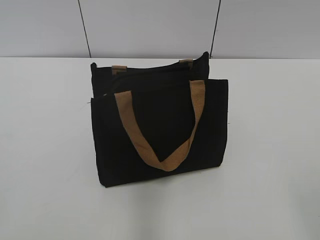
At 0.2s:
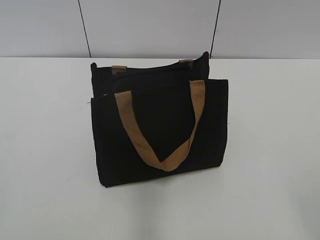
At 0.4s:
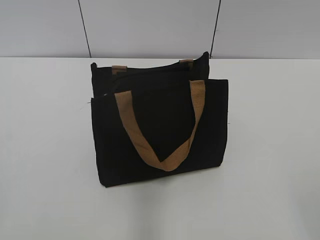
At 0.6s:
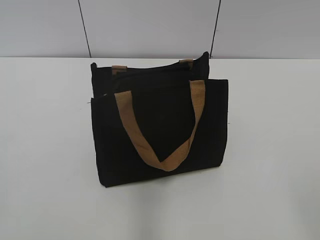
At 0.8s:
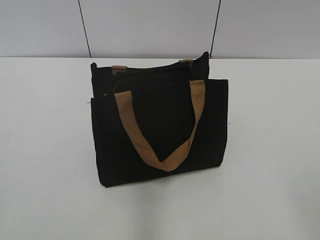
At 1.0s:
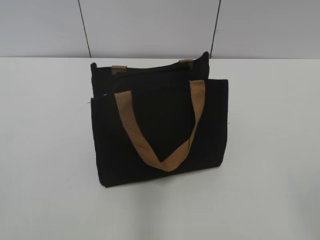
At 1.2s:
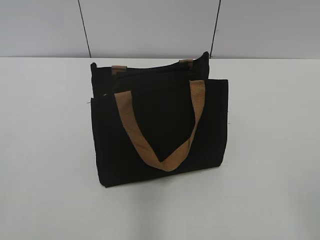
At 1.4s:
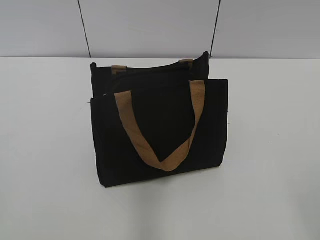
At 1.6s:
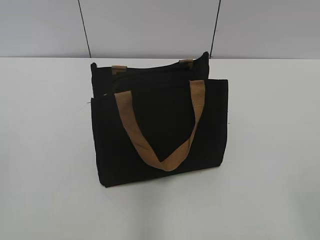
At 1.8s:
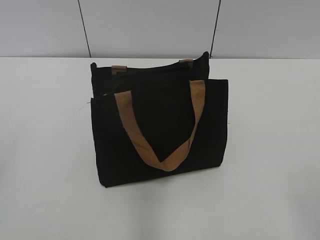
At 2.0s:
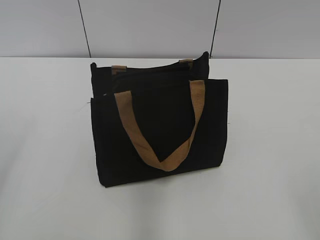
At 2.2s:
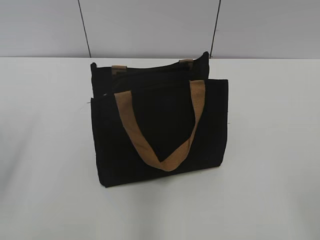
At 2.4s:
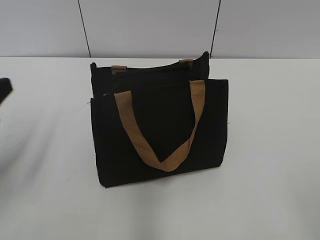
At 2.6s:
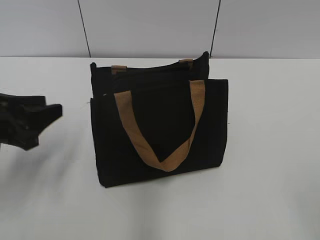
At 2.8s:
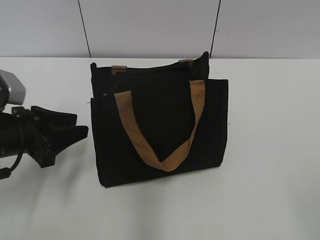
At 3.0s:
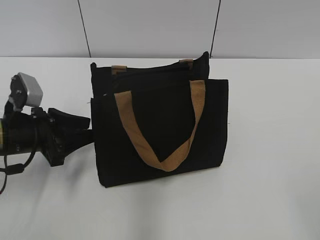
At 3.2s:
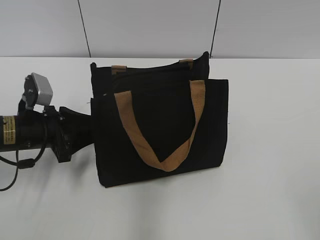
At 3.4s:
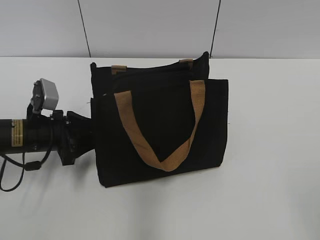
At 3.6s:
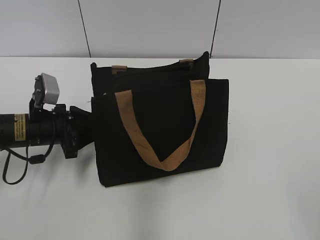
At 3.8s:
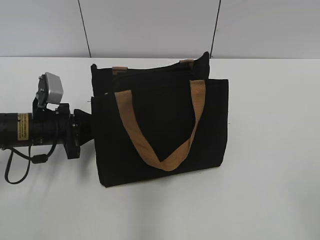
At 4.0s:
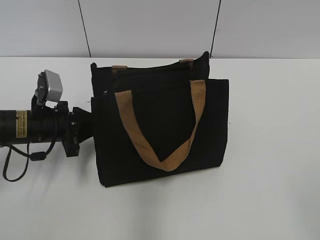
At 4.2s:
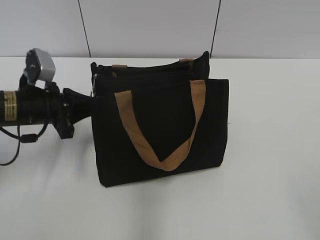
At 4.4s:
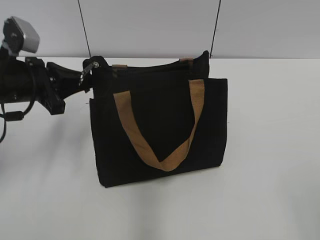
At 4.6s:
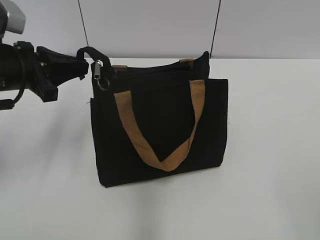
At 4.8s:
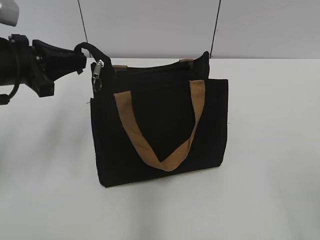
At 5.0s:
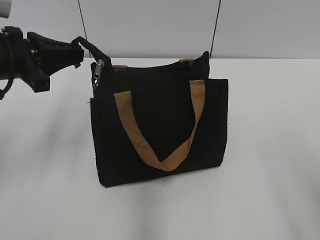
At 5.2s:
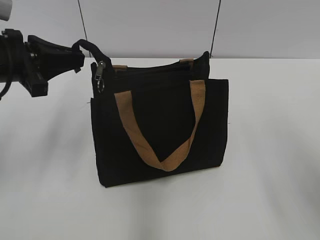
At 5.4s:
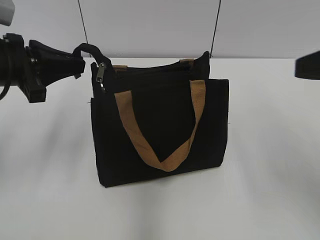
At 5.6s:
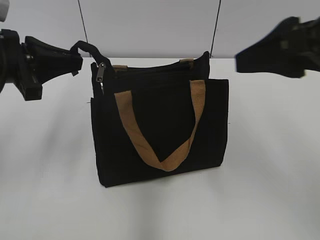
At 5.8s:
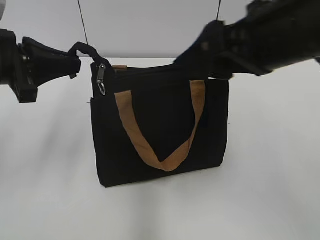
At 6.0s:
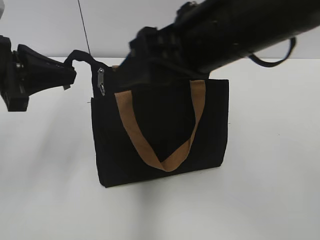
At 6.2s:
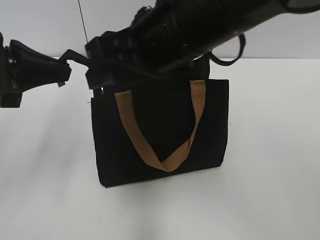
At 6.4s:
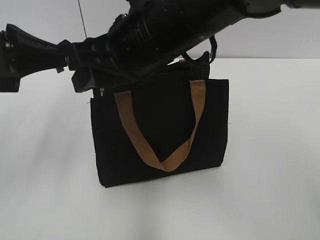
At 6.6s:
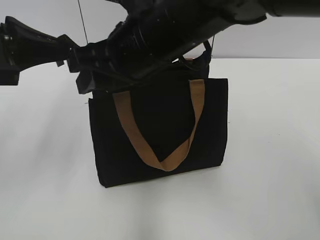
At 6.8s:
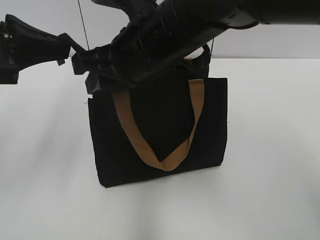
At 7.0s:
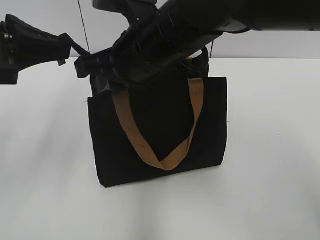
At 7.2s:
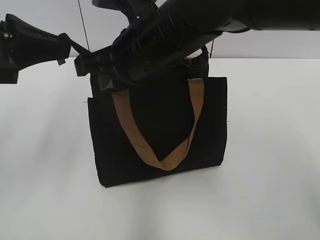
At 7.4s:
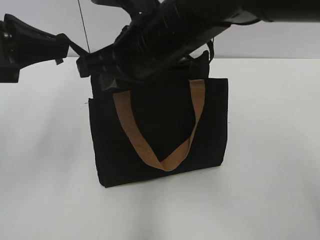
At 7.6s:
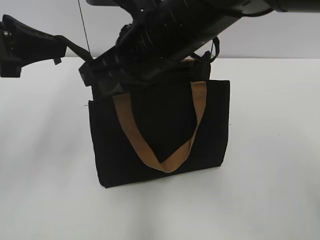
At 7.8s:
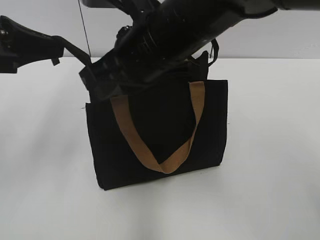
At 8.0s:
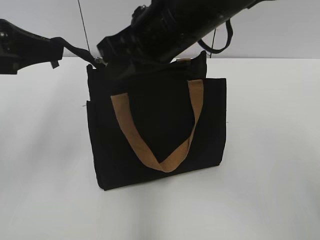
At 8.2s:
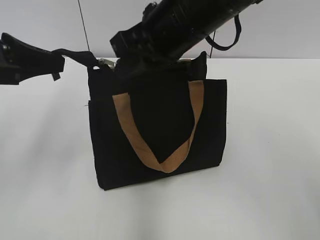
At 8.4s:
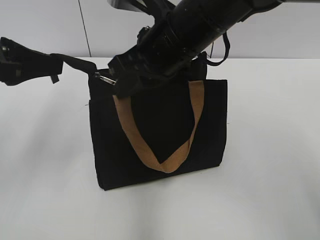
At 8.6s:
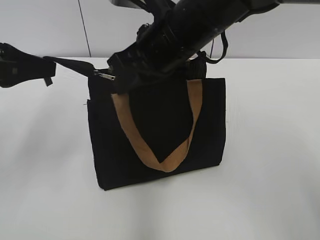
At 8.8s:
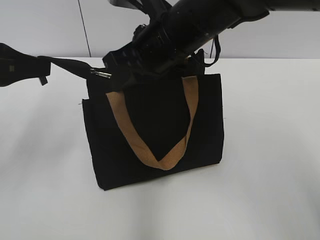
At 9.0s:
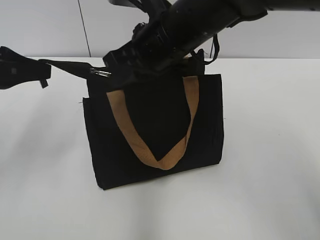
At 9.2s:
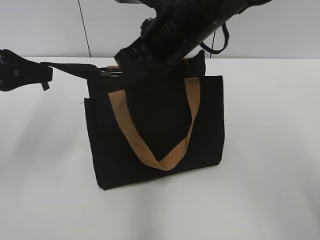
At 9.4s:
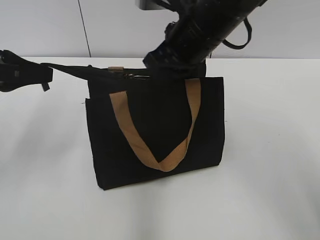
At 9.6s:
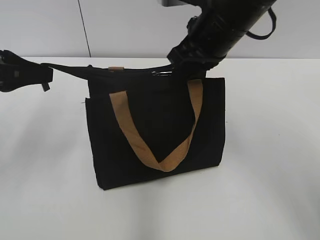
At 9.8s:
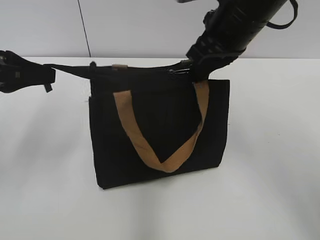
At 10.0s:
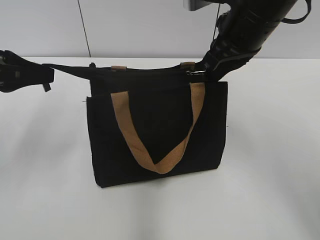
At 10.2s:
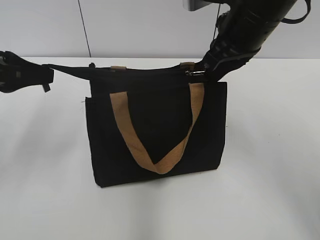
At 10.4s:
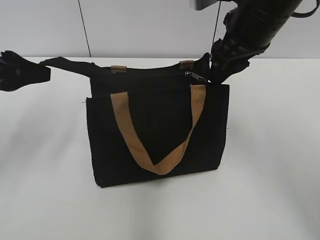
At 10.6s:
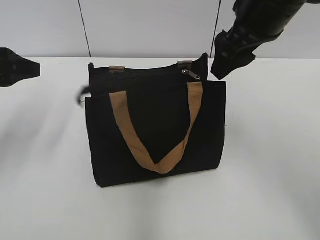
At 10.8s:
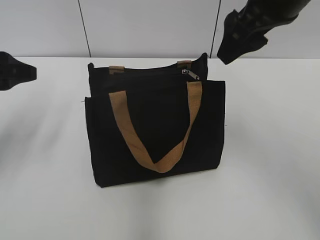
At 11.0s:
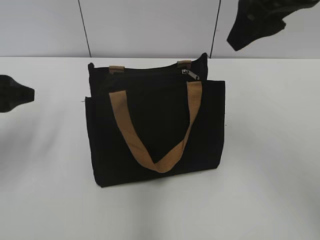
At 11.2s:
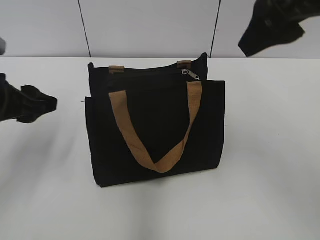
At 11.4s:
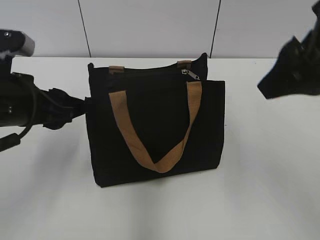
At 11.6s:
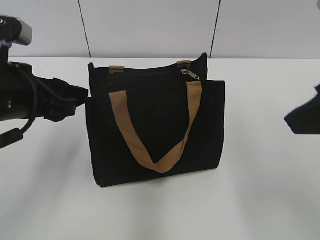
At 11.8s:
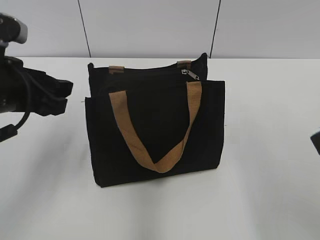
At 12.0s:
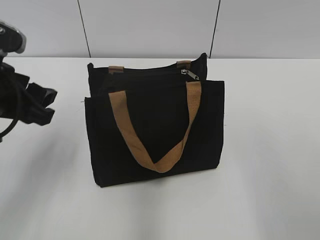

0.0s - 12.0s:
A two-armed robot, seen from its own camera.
Step, 0.0s - 10.2s: Zip up the bag with your right hand.
1.6s - 3.0s: The left gripper shifts roughly 30 cm forward and downward.
3.0s - 4.4s: The left gripper moves upward, some 5 cm, and closes its fingers.
4.4s - 6.0s: The left gripper shifts approximately 10 cm upward and backward. Meanwhile the right gripper is displaced forward and to the left by some 30 cm.
6.0s - 7.6s: The right gripper moves to the left, roughly 5 cm, and closes up.
7.6s - 9.0s: The right gripper shifts by approximately 5 cm.
9.0s - 10.4s: The left gripper opens its fingers, while the right gripper travels to the right by about 10 cm, and opens its fingers.
10.4s - 12.0s: The left gripper is displaced to the right by about 5 cm. The right gripper goes roughly 25 cm backward and to the right, and opens its fingers.

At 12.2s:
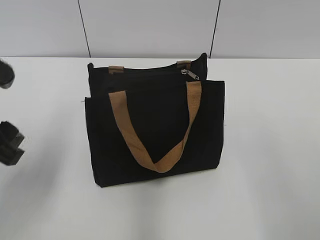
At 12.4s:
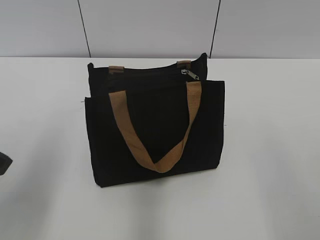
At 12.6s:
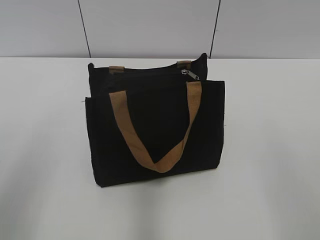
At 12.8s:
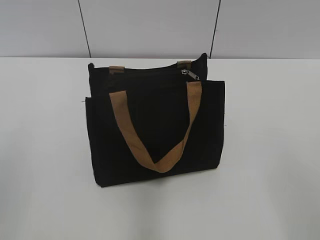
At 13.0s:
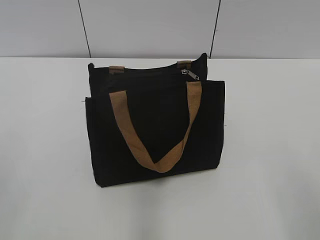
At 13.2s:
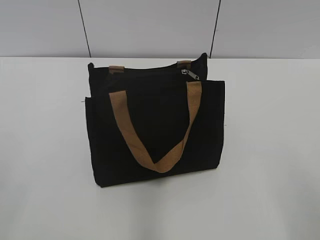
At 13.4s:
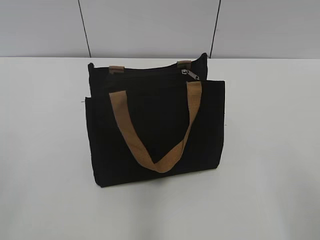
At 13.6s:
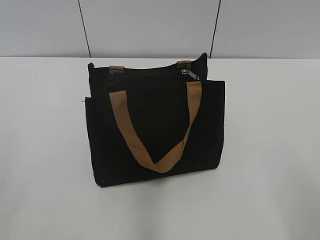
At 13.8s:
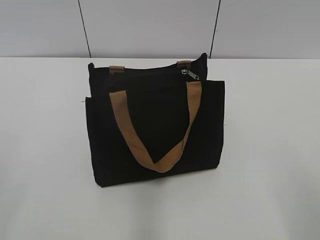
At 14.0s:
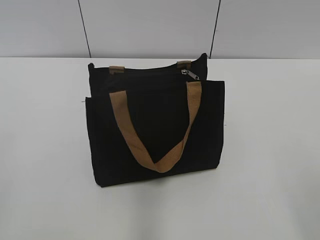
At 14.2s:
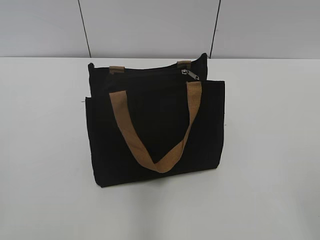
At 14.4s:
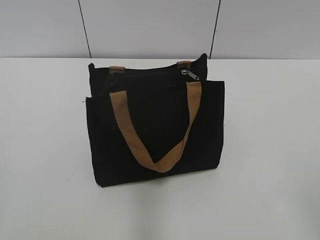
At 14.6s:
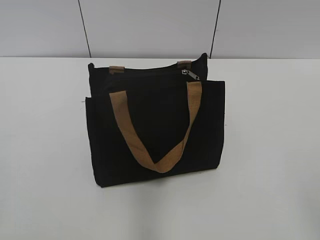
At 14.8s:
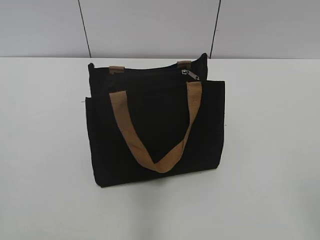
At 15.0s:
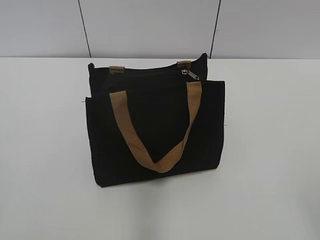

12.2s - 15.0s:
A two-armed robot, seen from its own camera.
12.2s - 13.6s: The left gripper heads backward and to the left, covering some 20 cm.

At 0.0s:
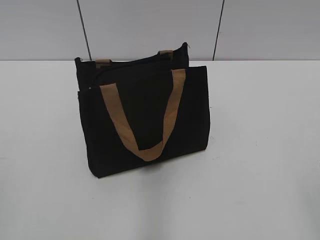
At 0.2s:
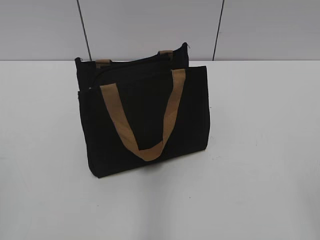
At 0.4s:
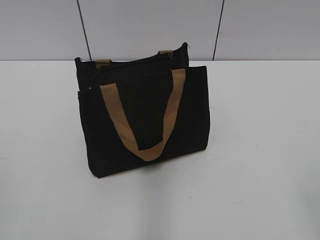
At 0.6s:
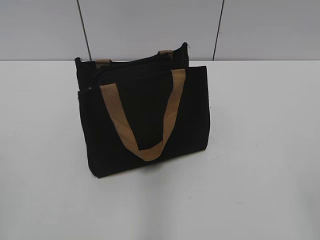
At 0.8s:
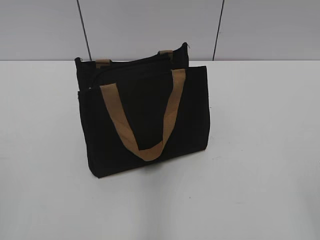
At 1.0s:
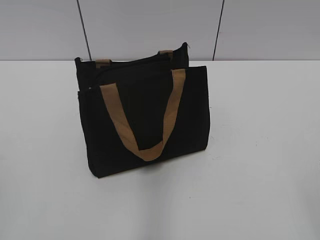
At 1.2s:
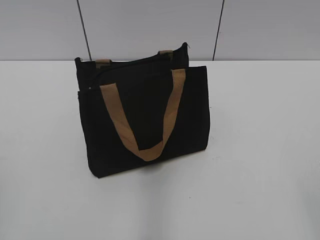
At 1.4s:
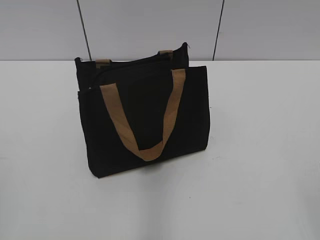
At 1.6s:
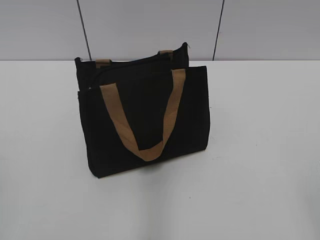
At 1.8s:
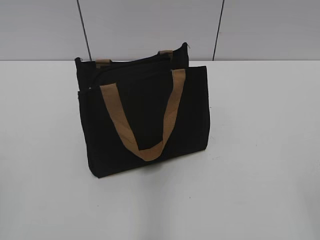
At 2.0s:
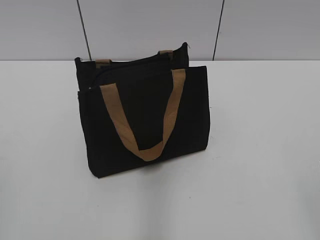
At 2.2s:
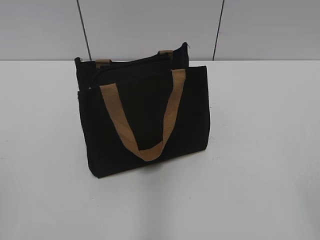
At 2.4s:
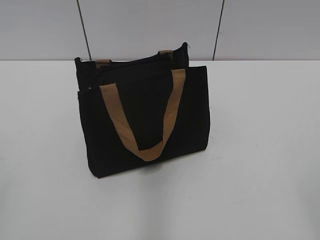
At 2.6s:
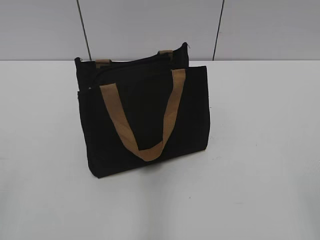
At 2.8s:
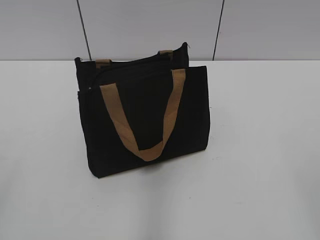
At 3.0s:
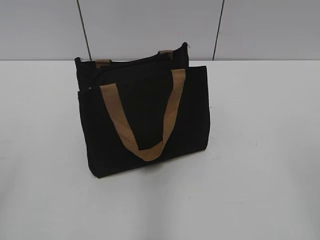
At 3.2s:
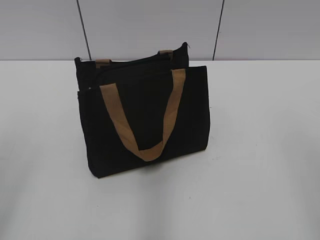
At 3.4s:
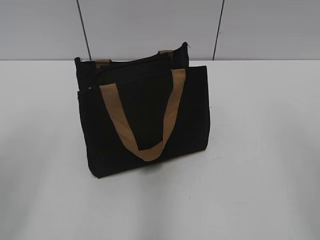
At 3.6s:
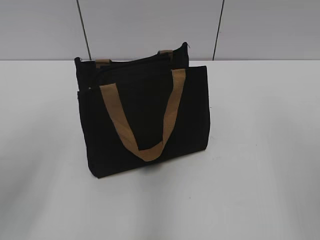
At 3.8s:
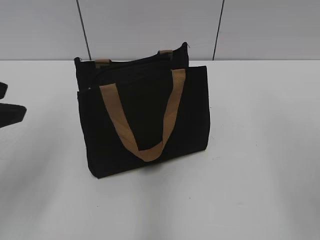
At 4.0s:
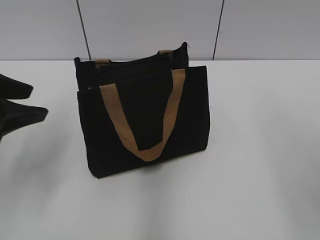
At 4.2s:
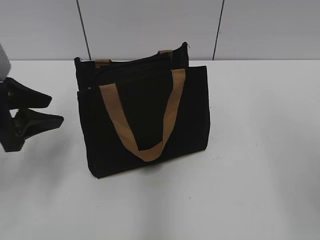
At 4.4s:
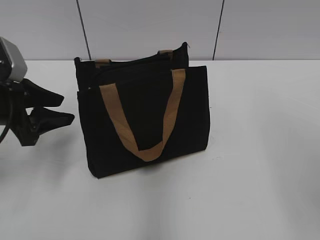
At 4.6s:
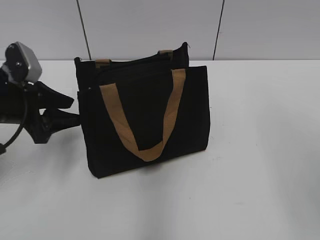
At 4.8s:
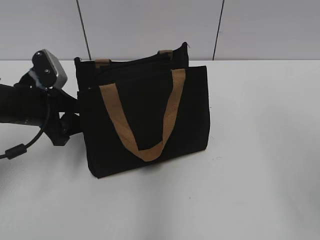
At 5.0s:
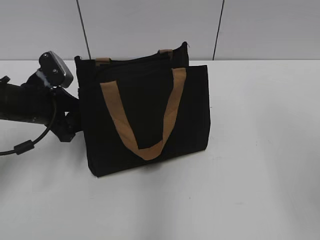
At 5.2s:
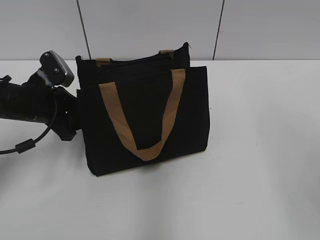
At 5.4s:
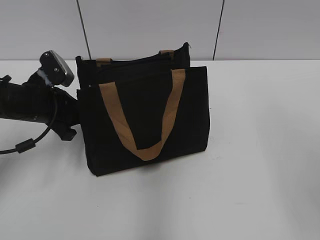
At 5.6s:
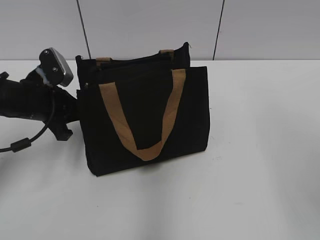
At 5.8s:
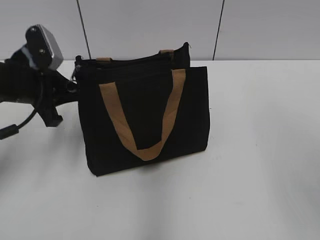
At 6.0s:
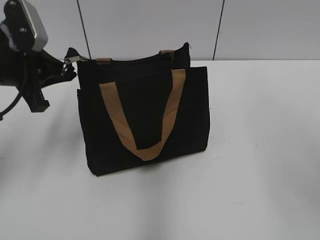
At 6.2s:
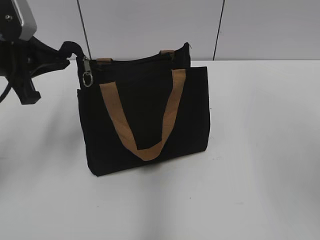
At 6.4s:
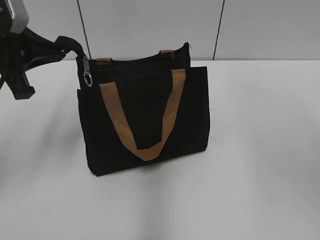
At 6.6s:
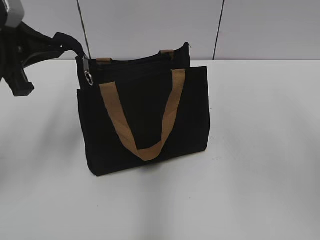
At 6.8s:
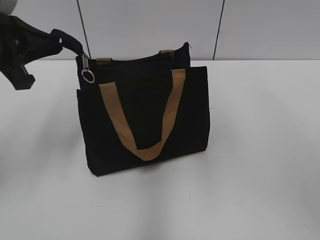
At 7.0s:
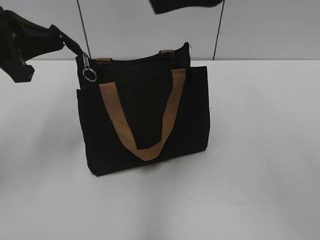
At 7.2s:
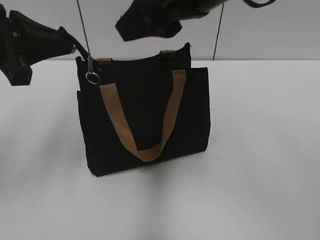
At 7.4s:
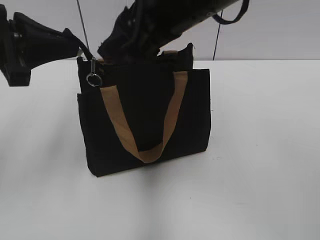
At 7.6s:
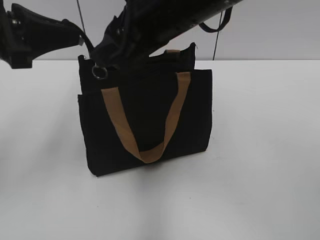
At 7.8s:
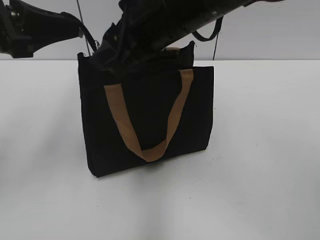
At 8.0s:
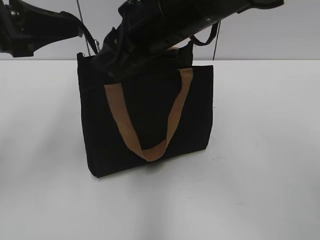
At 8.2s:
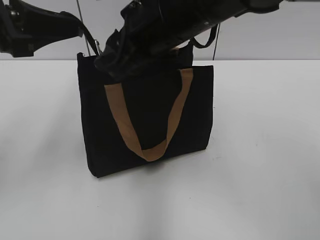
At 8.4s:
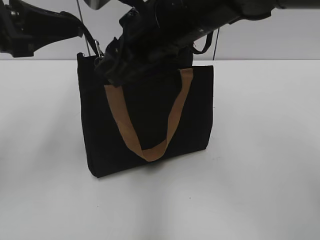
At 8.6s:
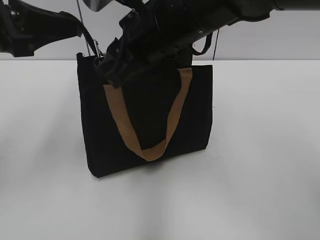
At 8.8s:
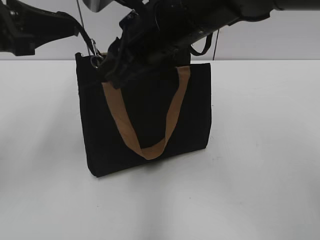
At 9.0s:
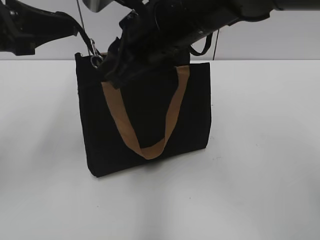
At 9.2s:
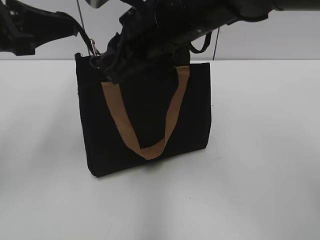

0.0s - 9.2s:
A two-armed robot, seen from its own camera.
3.0s - 4.6s: The left gripper moves forward and downward, about 30 cm.
4.6s - 6.2s: The left gripper goes roughly 10 cm upward, and closes up.
6.2s - 7.6s: The right gripper moves to the left and forward, approximately 25 cm. Meanwhile the left gripper changes place by roughly 5 cm.
7.6s - 9.2s: The right gripper closes its fingers.
